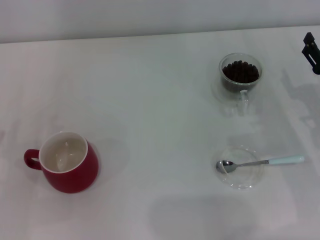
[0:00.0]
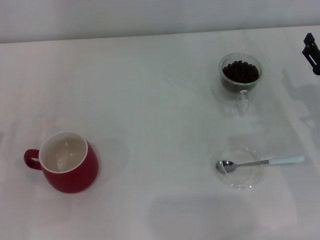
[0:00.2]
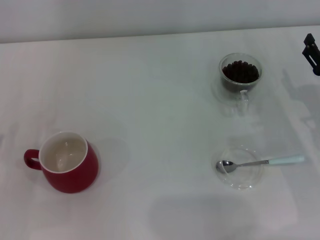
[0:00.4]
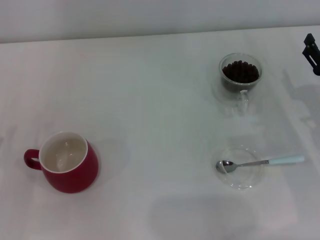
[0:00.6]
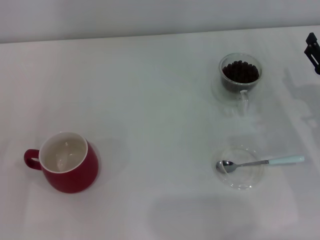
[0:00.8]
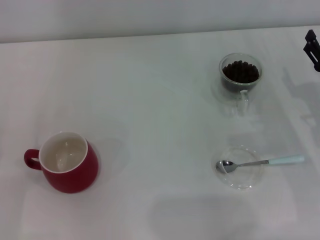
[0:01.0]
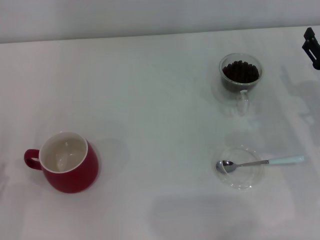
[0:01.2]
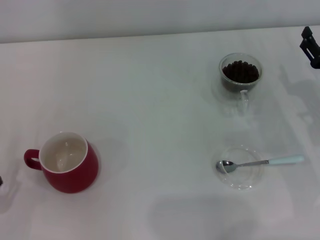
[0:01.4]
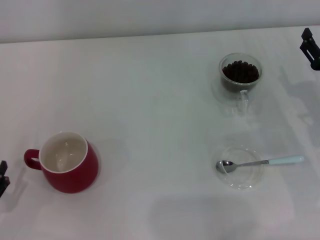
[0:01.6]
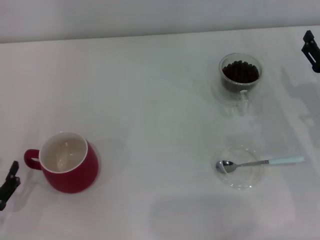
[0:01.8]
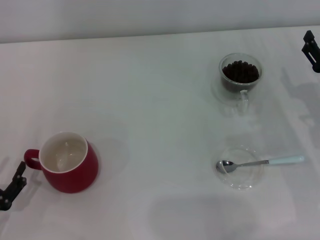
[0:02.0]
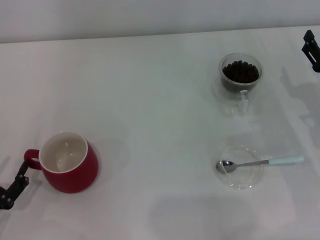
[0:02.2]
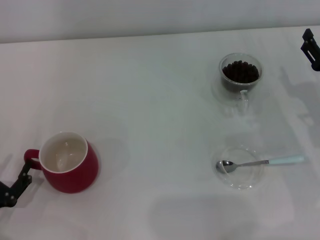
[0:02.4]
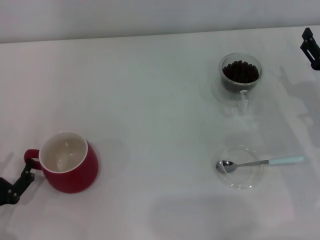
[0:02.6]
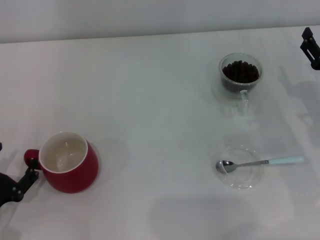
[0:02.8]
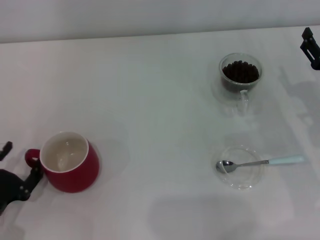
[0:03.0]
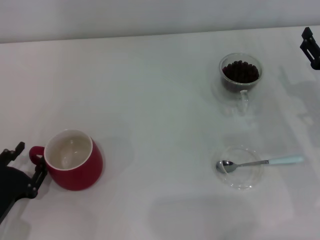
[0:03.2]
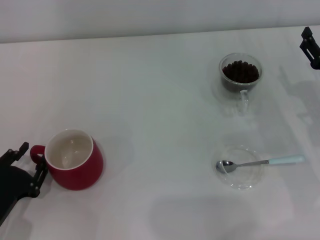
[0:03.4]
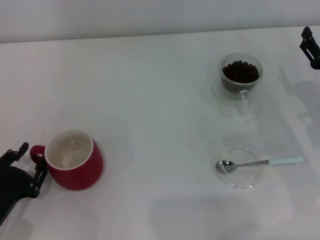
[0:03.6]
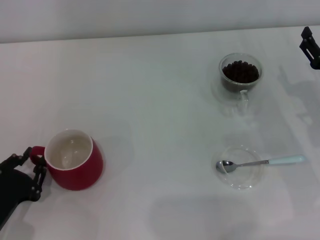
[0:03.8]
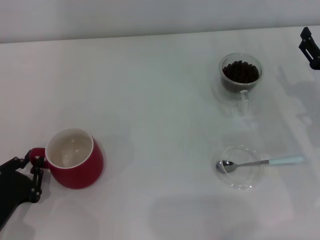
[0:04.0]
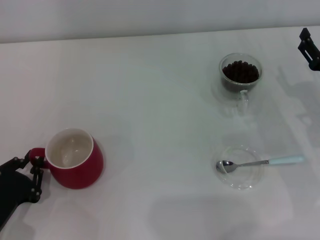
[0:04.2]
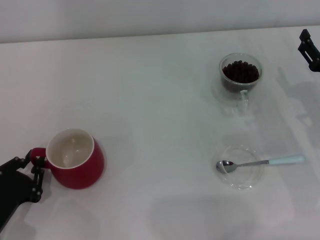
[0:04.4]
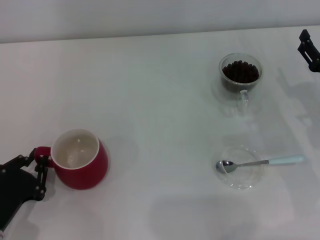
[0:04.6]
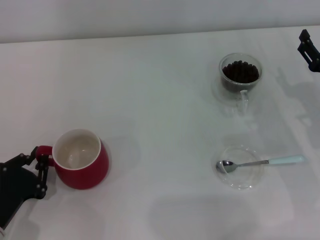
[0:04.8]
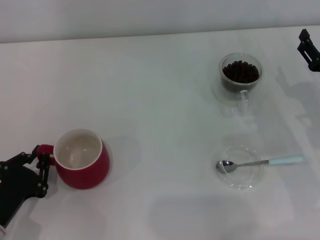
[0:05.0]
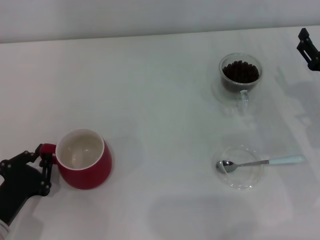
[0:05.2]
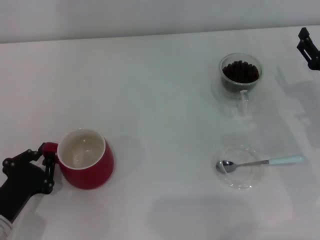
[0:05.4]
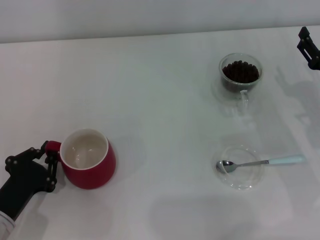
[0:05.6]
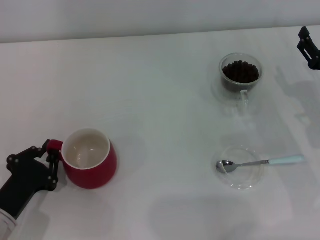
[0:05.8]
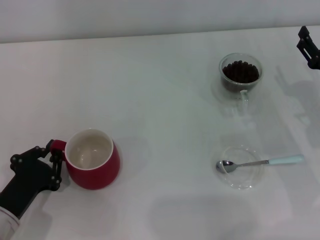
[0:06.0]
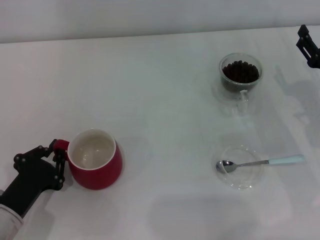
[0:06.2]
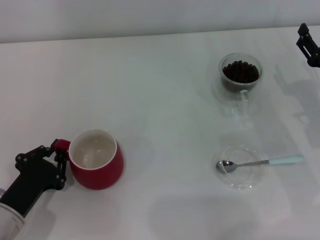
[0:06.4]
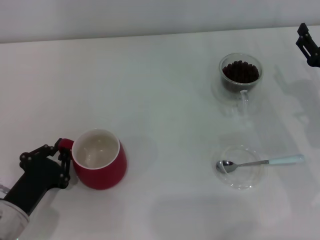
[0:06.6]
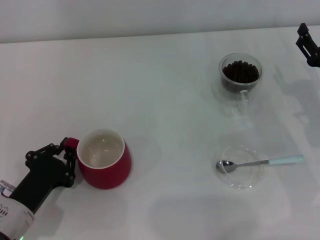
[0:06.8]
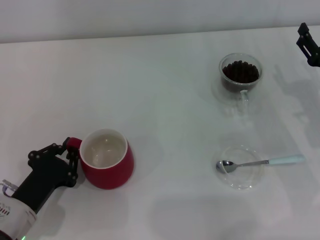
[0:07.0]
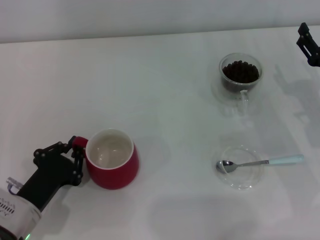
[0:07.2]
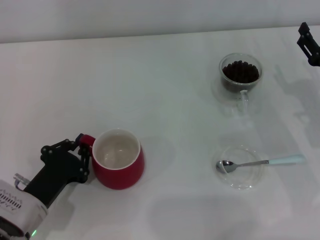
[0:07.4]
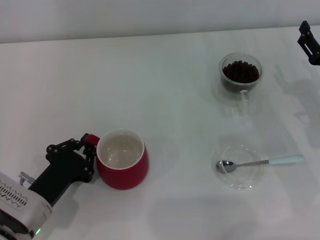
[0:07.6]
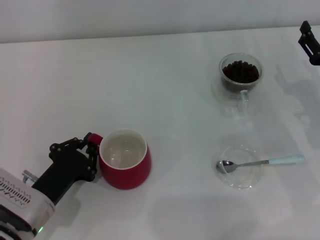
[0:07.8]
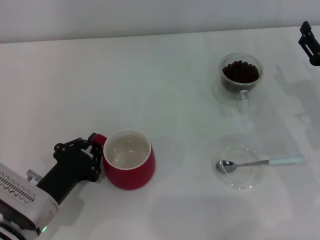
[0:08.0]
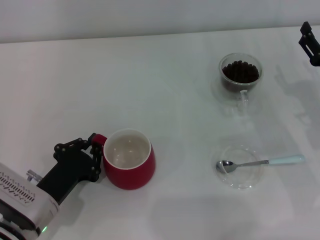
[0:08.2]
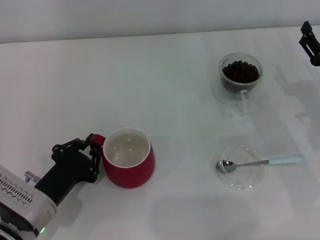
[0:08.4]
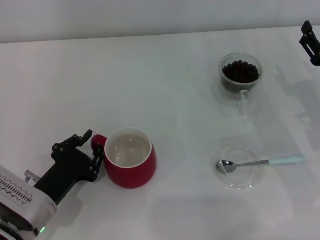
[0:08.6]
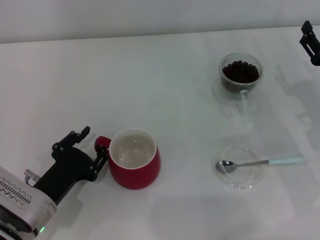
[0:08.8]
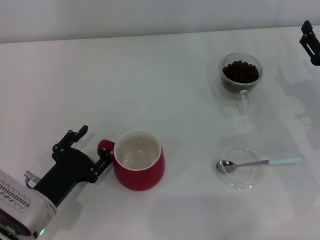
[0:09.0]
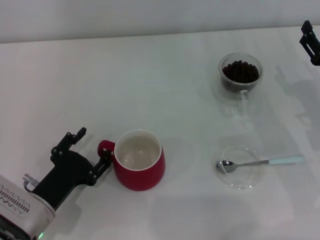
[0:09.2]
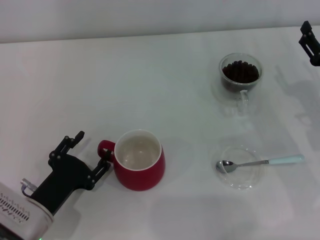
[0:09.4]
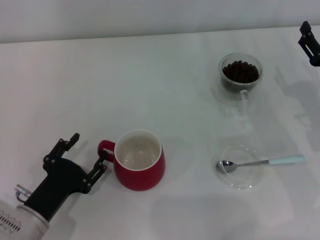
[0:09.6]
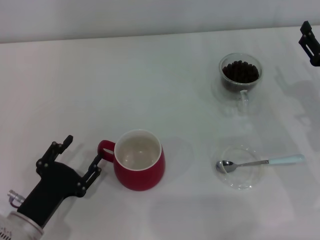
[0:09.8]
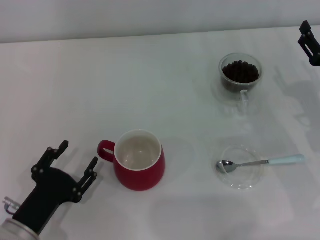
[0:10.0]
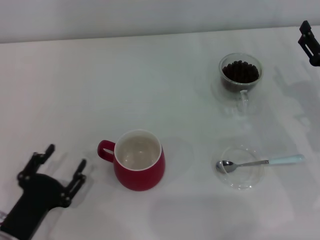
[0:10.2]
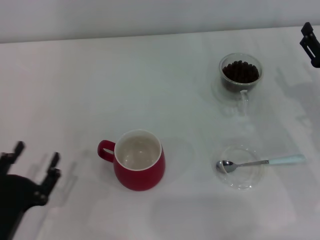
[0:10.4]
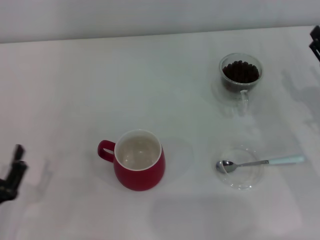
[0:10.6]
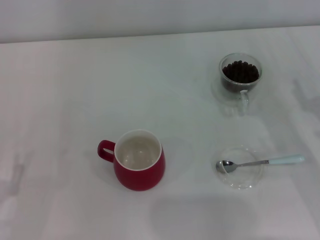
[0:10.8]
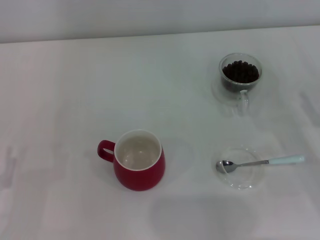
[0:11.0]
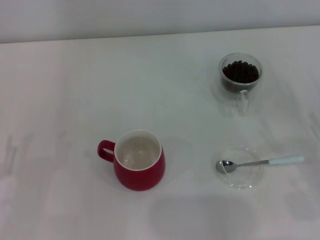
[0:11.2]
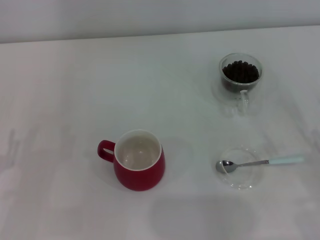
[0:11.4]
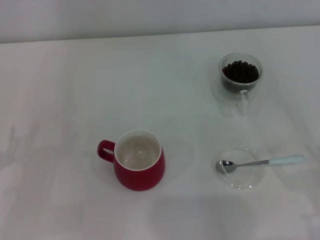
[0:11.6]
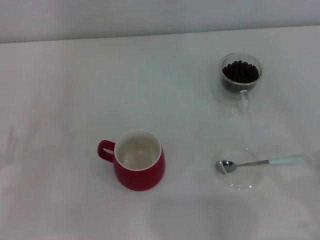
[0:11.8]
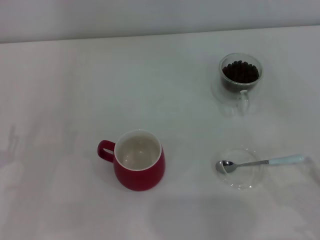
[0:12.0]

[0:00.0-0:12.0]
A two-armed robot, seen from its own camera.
Task of the whole recording: Use a blue spoon to take out the coffee beans from the glass and pour them into the red cup.
Step, 0:00.0 to 0:10.0: Move the cup to the center of view with the left gripper.
0:01.6 to 0:03.0: The grippers stay close to where they were, moving slightly.
0:03.0 to 0:04.4: The left gripper closes up.
0:04.4 to 0:06.0: The grippers stay close to where they were, moving slightly.
0:06.0 to 0:07.6: There are only small adjustments of the grippers.
0:07.6 to 0:09.0: The left gripper opens.
0:09.0 to 0:10.4: The left gripper shifts some 5 cm backward.
0:10.4 to 0:12.0: The left gripper moves to the left and forward, approximately 10 cm. The right gripper goes about 20 cm backward.

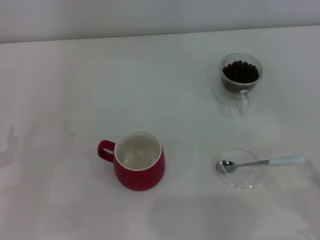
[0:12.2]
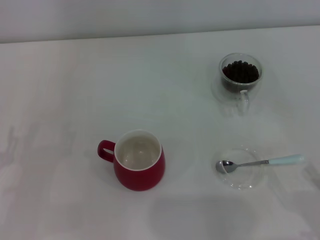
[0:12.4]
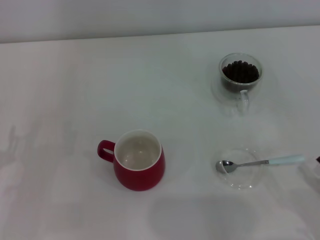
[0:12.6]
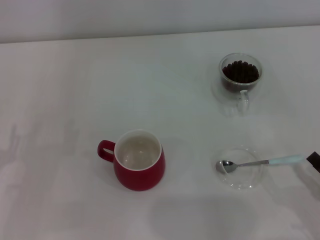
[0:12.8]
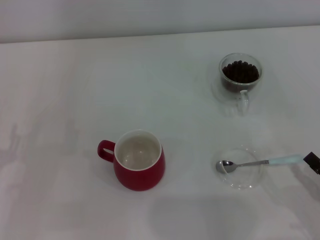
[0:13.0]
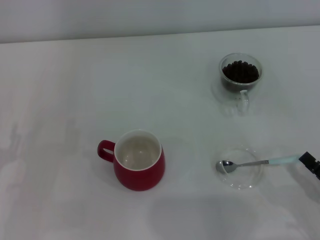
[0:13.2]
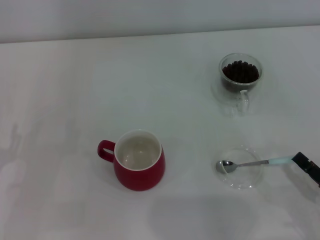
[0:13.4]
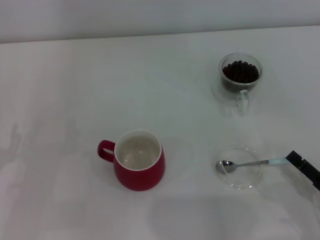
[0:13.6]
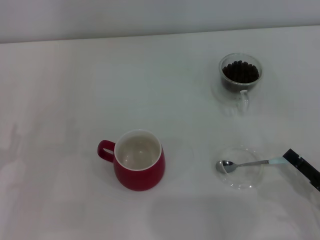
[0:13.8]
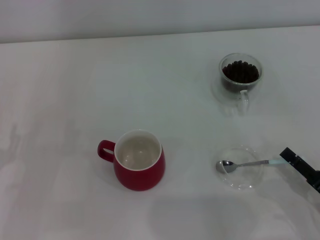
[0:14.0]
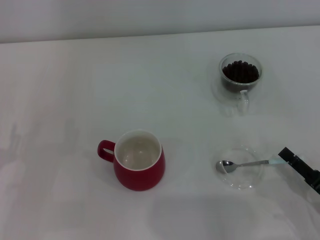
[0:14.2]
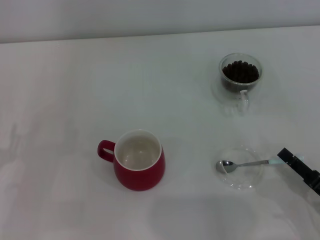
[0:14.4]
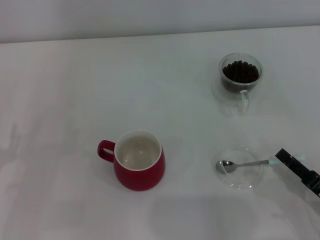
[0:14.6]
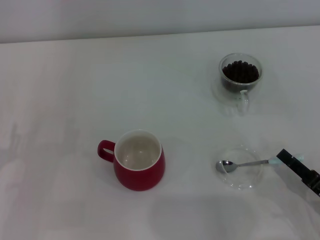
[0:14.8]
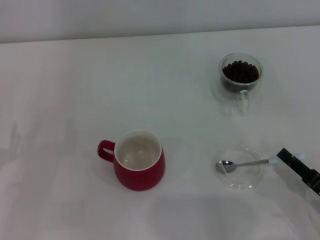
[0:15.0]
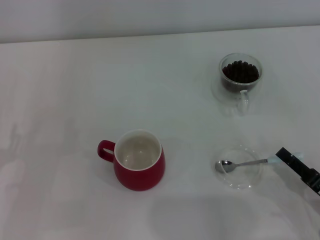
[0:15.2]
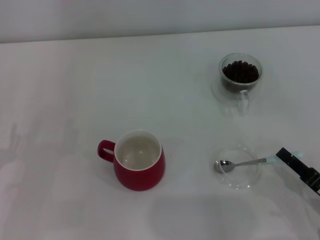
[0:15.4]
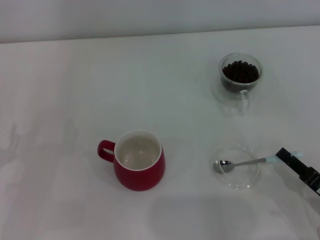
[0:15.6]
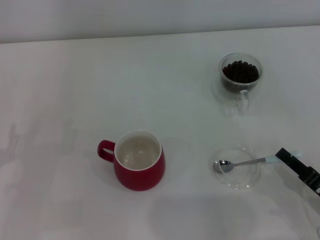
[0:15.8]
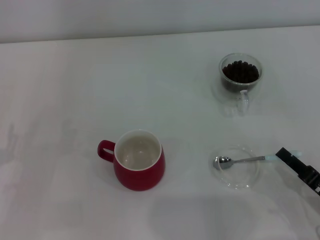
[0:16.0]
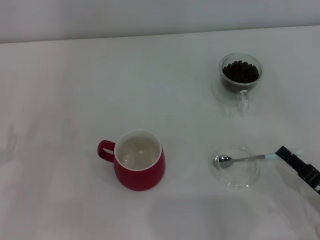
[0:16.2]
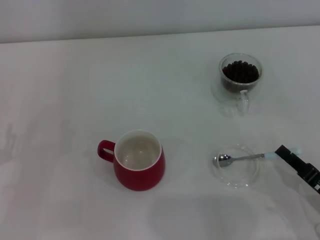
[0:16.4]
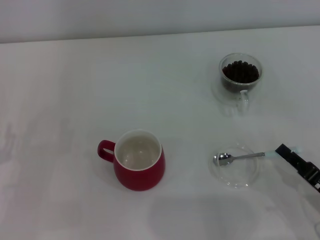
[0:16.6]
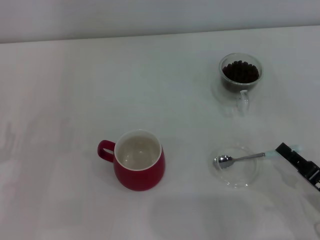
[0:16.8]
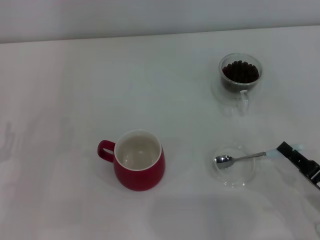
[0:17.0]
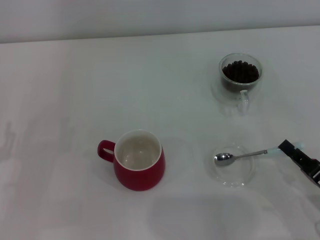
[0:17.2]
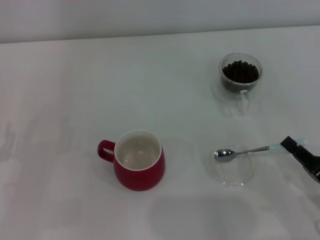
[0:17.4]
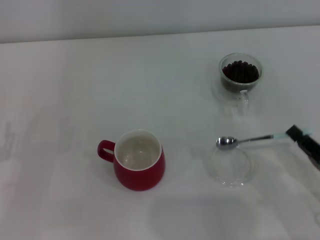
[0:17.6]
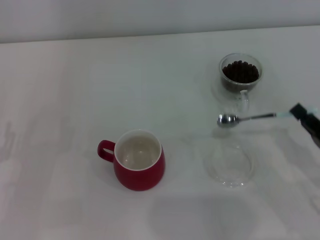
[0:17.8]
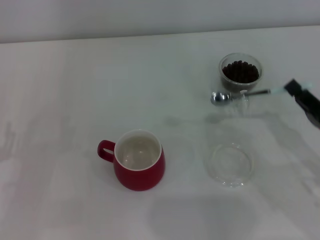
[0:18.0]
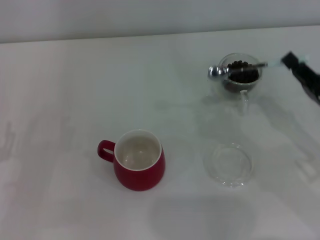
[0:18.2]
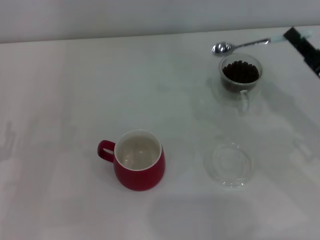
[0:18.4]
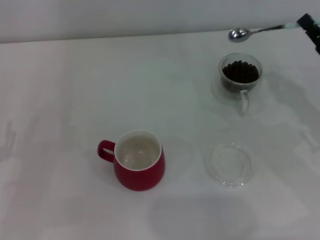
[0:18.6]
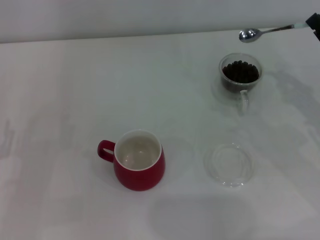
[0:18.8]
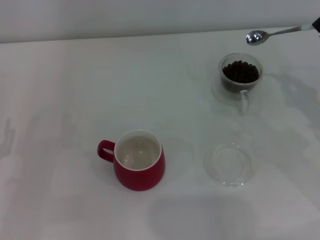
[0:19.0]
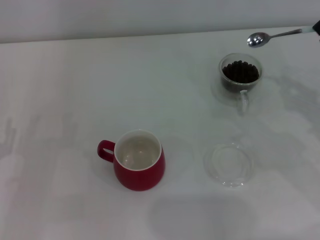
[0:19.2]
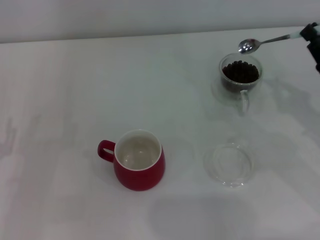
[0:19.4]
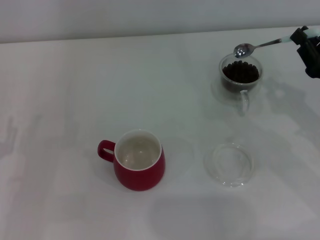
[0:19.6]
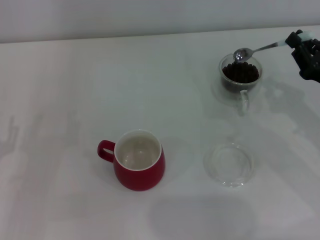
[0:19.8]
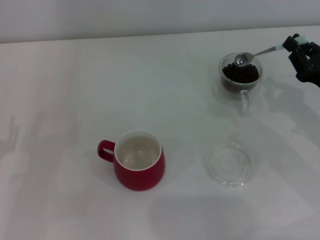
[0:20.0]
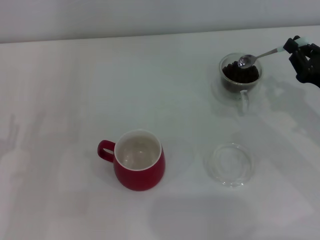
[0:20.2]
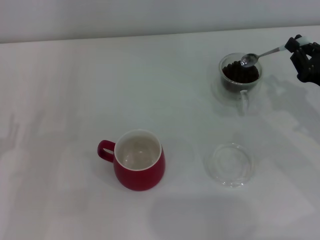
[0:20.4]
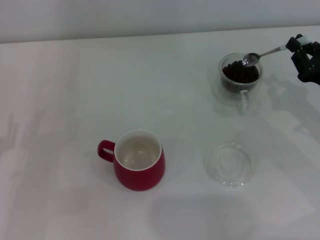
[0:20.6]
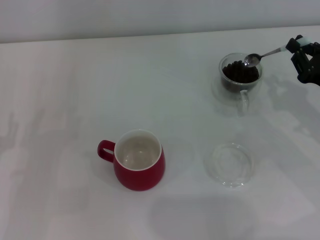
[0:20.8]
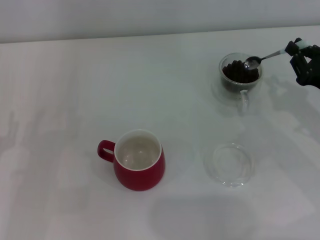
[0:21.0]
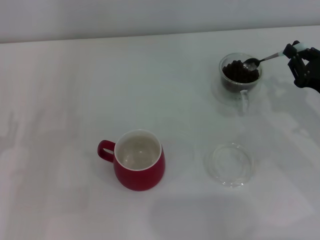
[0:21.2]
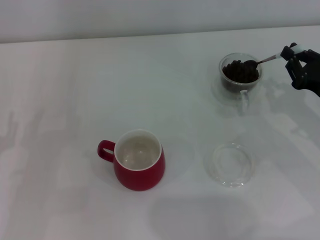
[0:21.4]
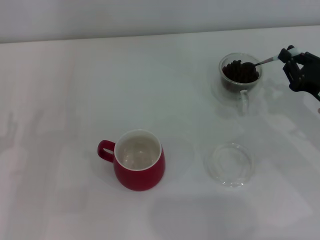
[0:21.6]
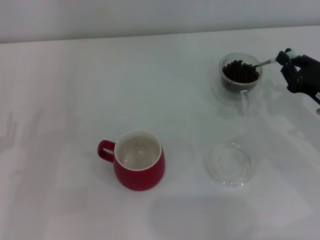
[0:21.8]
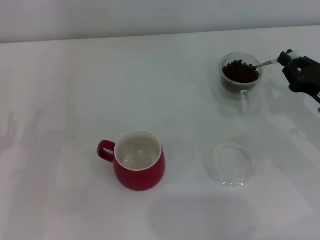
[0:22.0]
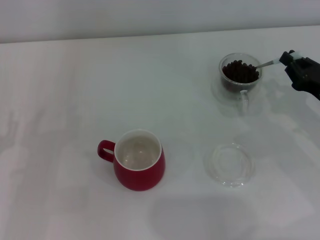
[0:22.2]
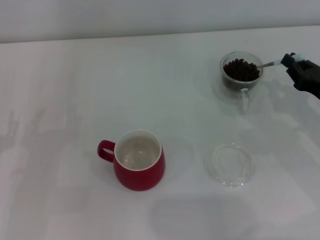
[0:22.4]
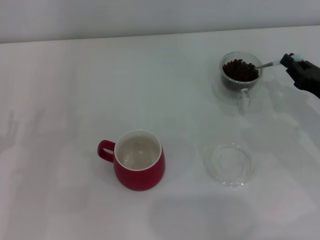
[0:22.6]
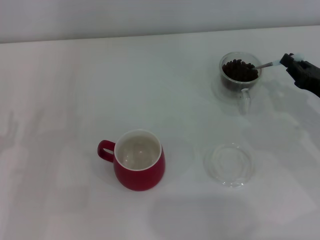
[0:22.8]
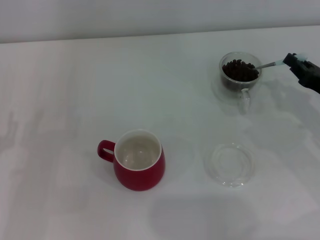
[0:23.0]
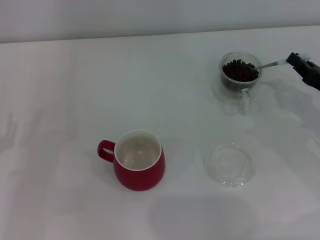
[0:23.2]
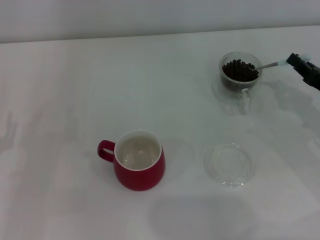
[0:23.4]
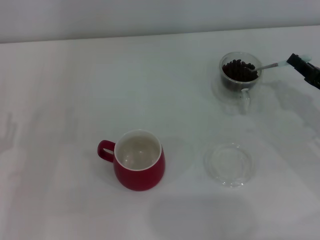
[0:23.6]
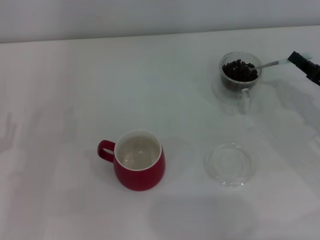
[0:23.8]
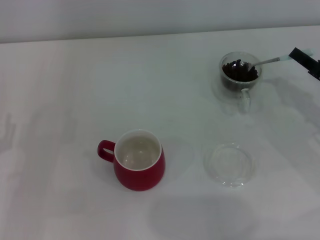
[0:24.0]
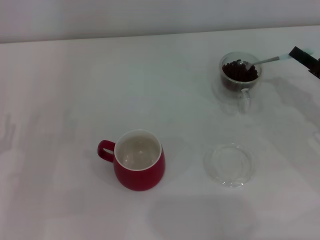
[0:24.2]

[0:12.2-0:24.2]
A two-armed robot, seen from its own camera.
Task of the whole recording: Use a blue spoon to take out the coffee beans from the glass and pour them into the red cup.
Step, 0:12.2 to 0:17.6: Pick up the spoon with the right gripper.
0:12.2 to 0:13.8: The right gripper shifts by some 5 cm.
0:13.8 to 0:15.2: The right gripper closes up.
0:15.2 to 0:16.6: The right gripper closes its fingers.
0:16.6 to 0:18.2: The right gripper moves forward and upward, about 10 cm.
0:19.8 to 0:22.6: The grippers move only a little.
0:22.6 to 0:24.2: The grippers move only a little.
